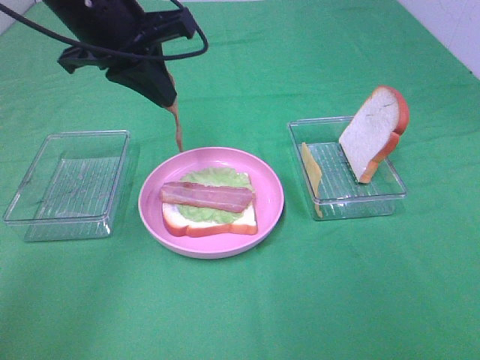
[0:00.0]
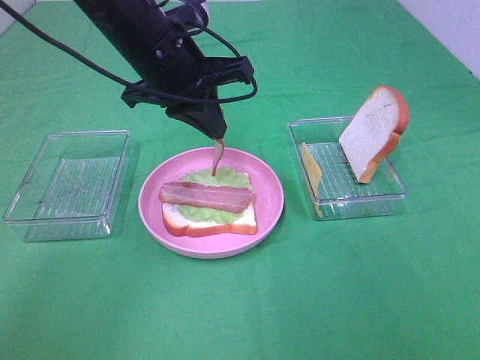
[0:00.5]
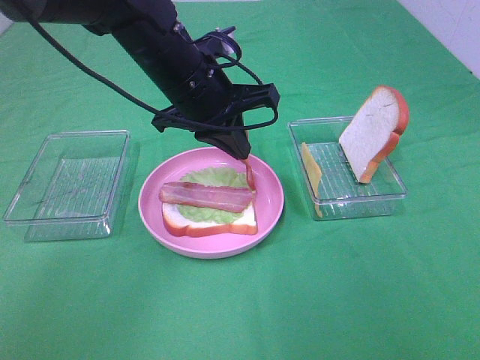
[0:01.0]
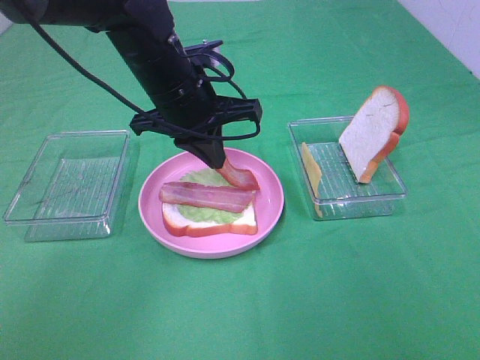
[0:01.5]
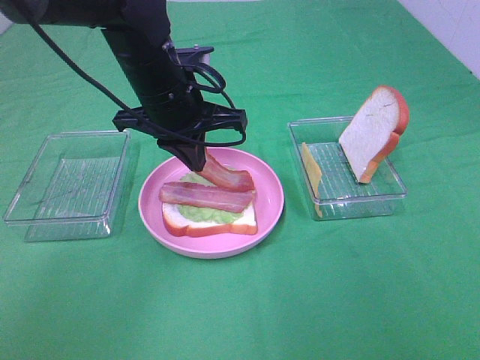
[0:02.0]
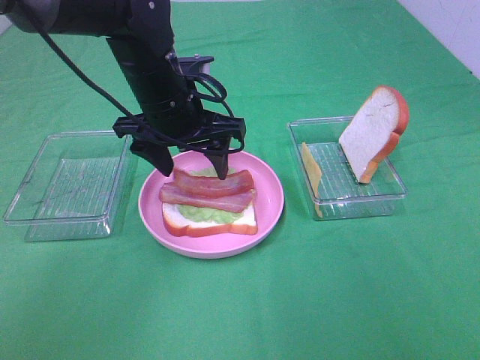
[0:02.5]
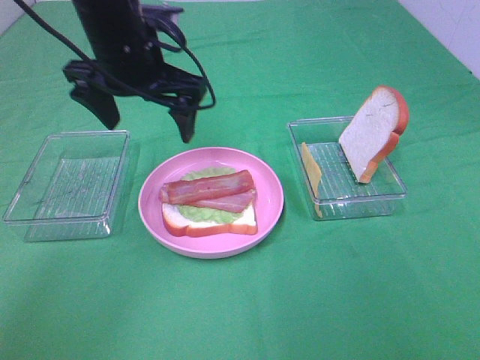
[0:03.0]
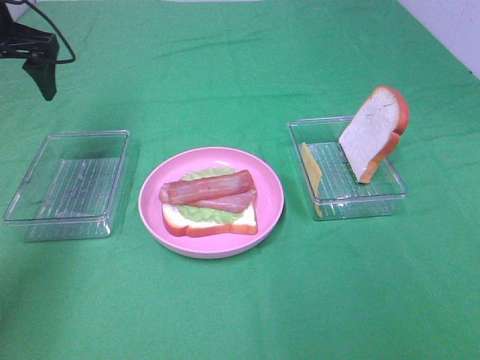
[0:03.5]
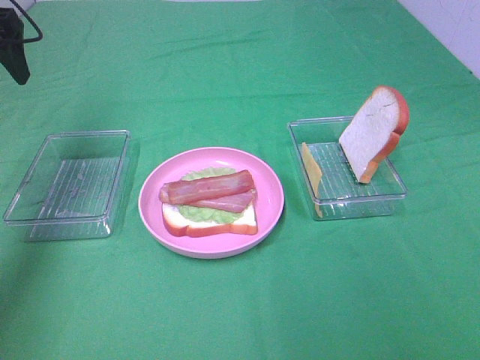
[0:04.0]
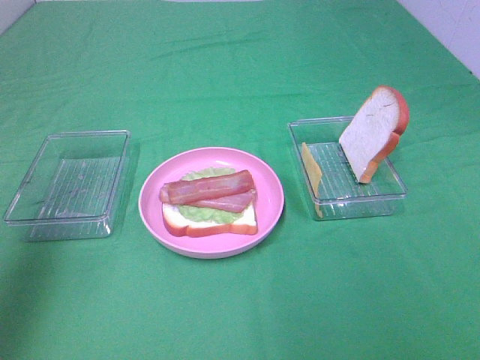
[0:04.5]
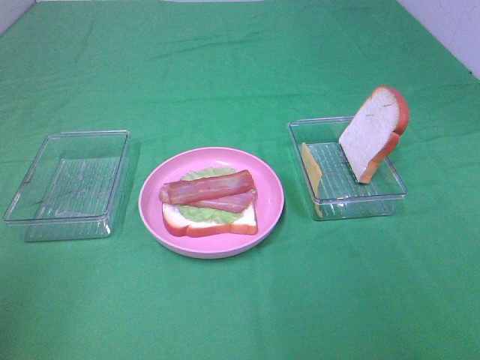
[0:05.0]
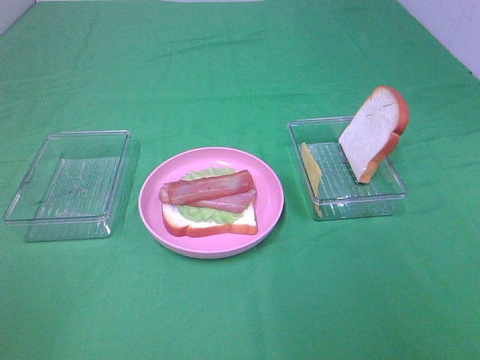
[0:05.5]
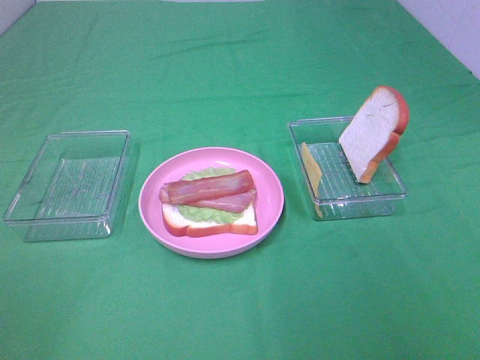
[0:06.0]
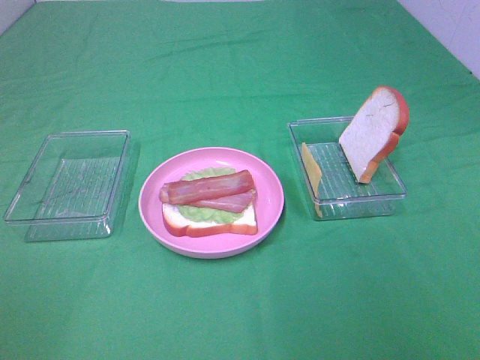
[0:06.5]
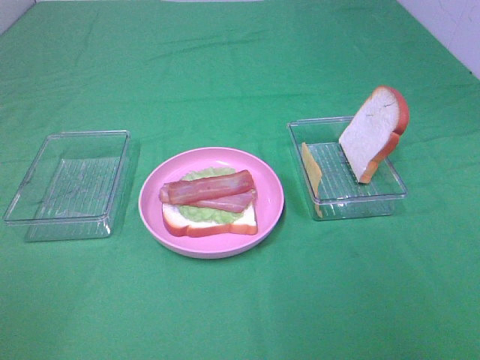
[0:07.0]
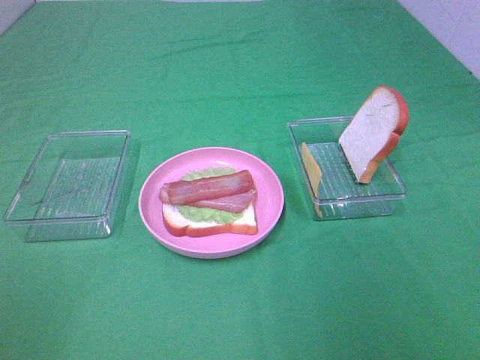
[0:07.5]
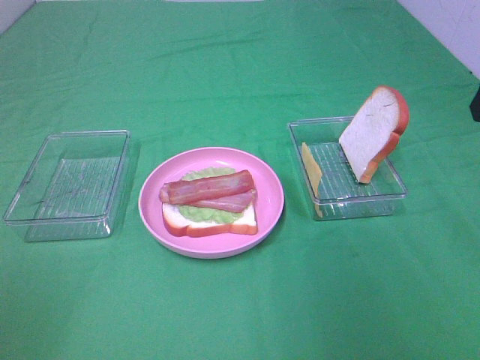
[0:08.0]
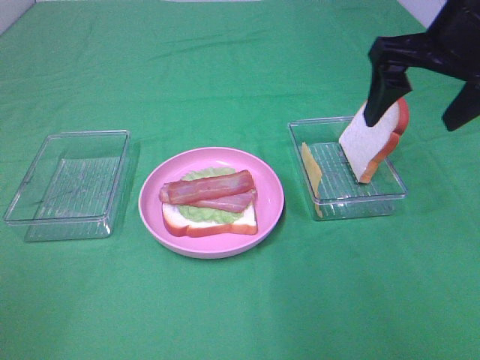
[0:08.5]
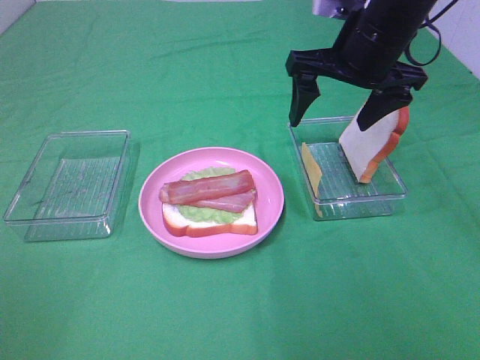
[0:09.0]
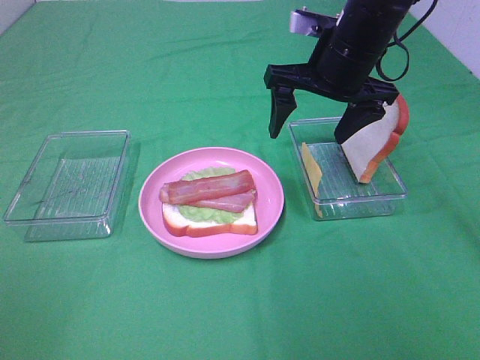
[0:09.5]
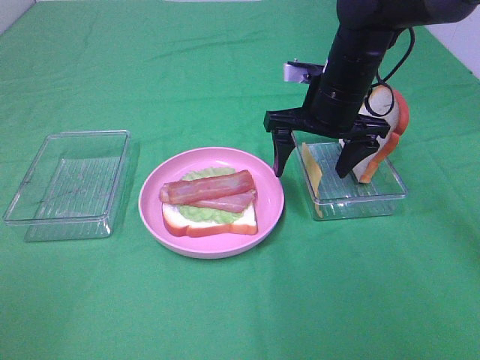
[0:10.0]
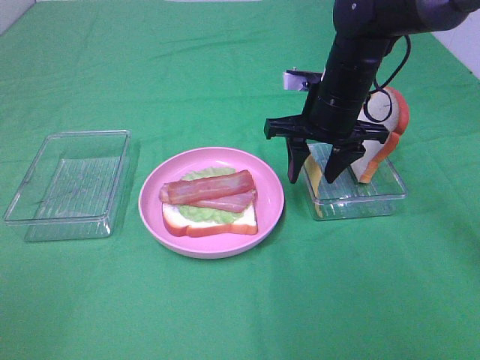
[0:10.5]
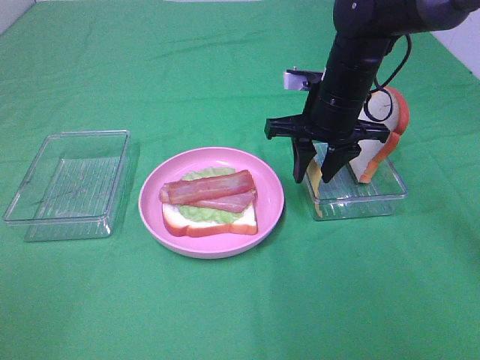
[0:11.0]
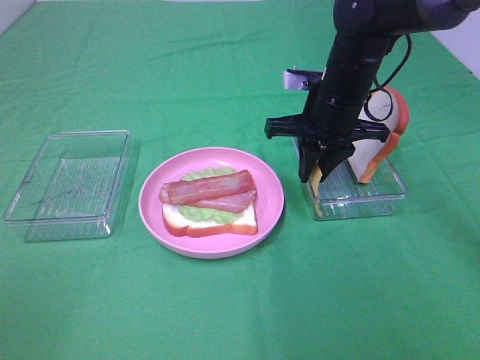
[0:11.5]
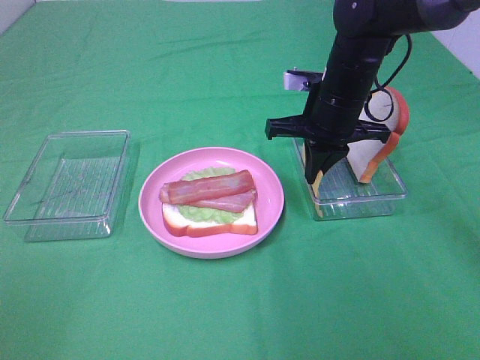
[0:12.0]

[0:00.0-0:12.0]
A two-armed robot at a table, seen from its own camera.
Task of the whole recording: Make sandwiches.
Step, 0:00.0 to 0:02.5: Left hand:place bacon on bacon.
0:00.0 to 0:02.0: The left gripper shifts approximately 10 cm downward and to the right.
0:02.0 to 0:04.0: The left gripper travels to the left and upward by some 25 cm, and opens up.
0:04.0 to 0:06.0: The left gripper shifts some 40 cm backward.
0:08.0 to 0:10.0: The right gripper heads to the left, downward and forward, covering some 25 cm.
0:10.0 to 0:12.0: The right gripper closes.

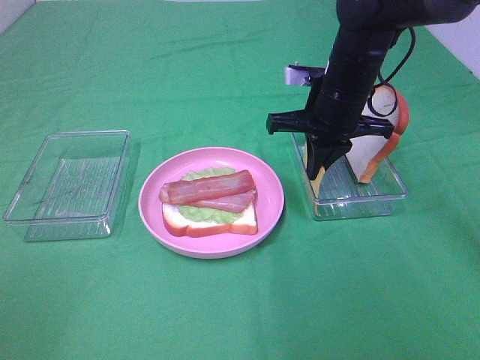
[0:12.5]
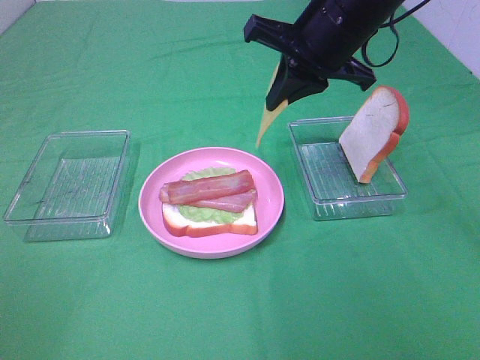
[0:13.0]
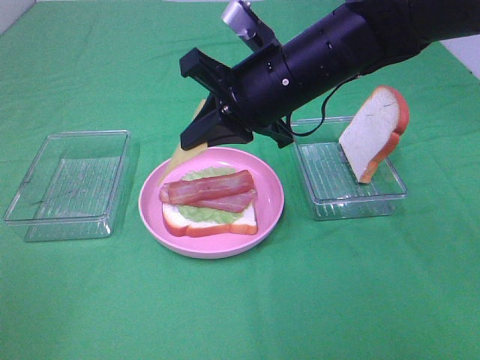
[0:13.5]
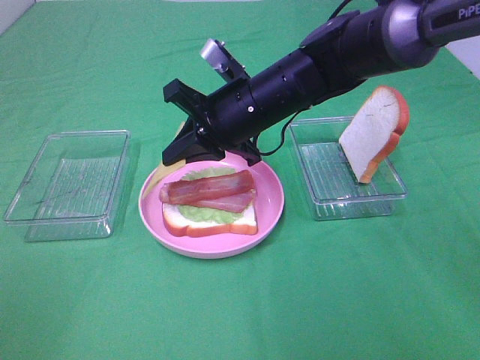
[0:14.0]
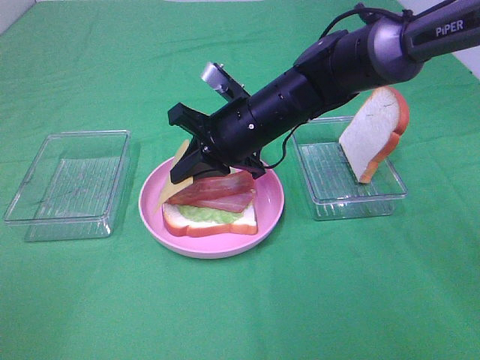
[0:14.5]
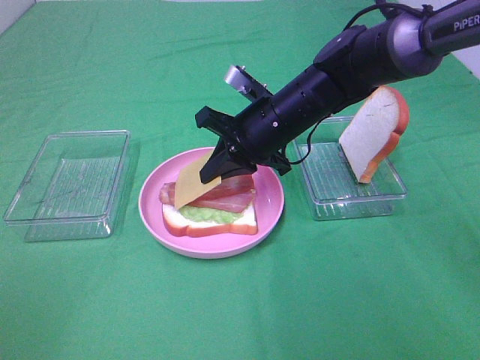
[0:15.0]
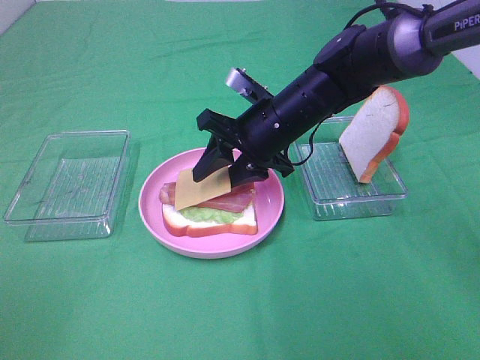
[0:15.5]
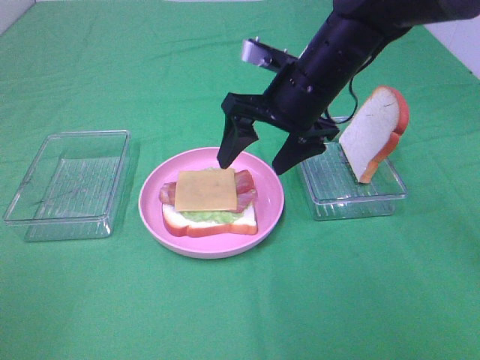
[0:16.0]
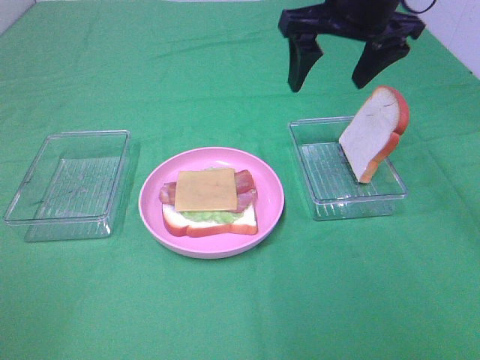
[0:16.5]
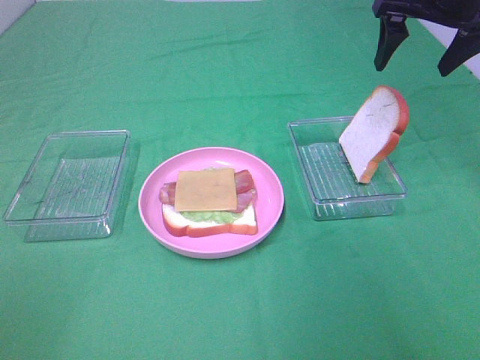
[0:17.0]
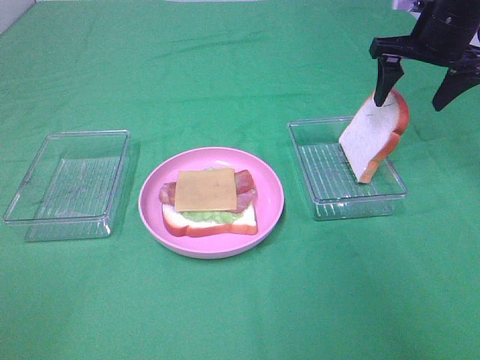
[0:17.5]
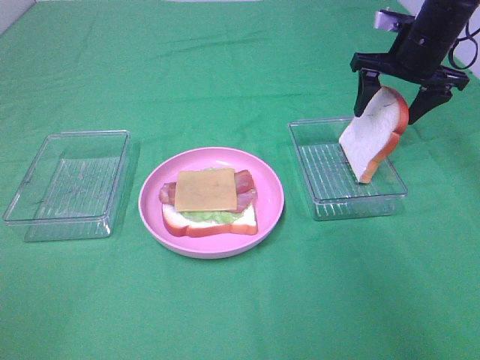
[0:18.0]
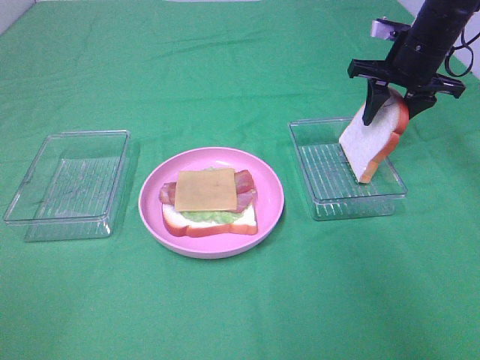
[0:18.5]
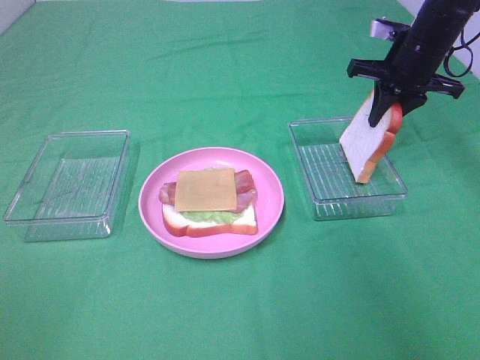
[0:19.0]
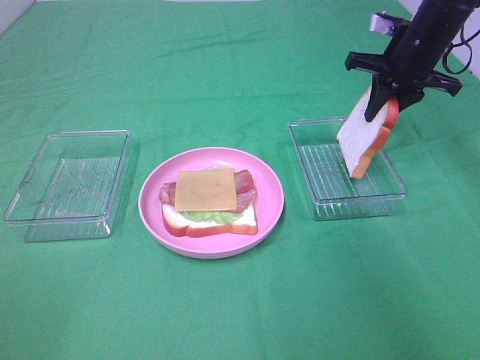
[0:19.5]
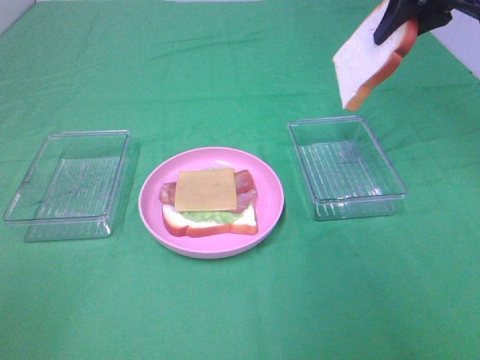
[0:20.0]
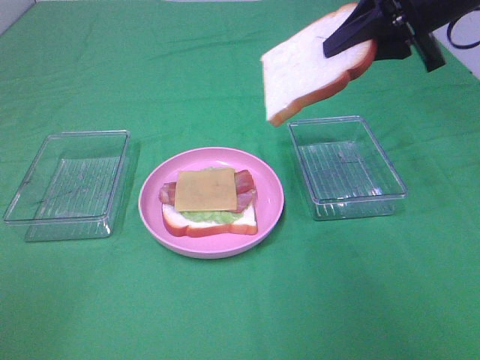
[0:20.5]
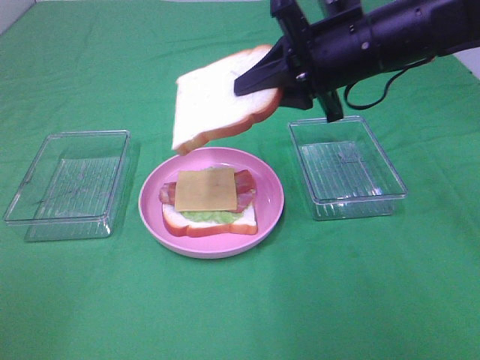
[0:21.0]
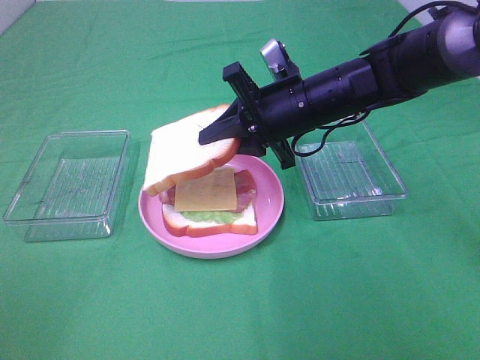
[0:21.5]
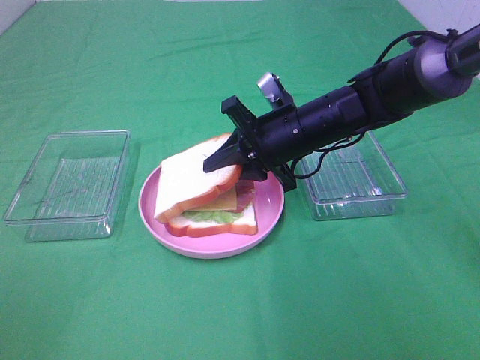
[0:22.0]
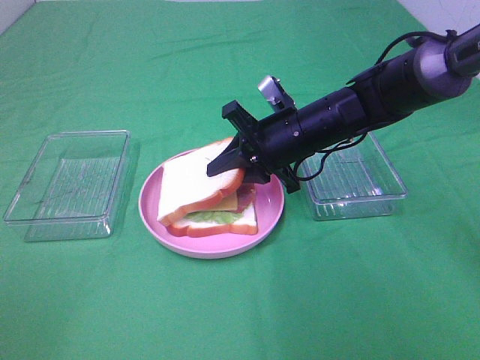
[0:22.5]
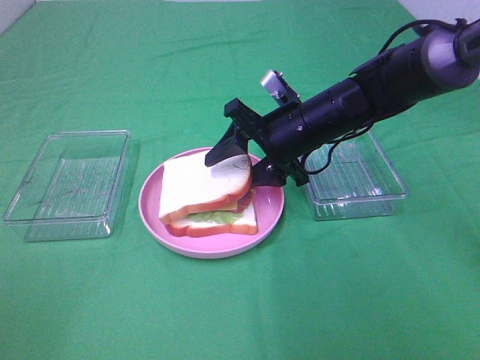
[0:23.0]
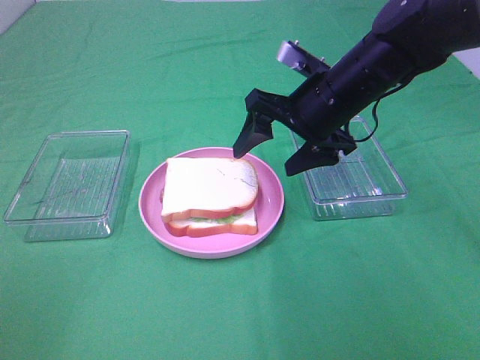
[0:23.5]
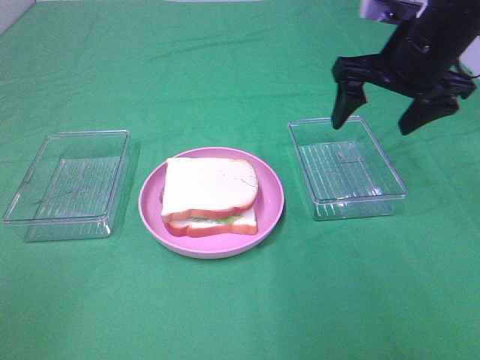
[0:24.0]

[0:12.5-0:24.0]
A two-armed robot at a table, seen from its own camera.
Task of the whole recording: Make sandwiches.
Step, 0:12.5 to 0:16.0: Right hand:place the cheese slice on top of the bacon.
Step, 0:16.5 to 0:19.0: Right hand:grab the bread slice.
Step, 0:19.5 to 0:23.0: Right hand:place the bread slice on the cheese slice.
0:12.5 to 0:14.5: The right gripper is displaced to the left by some 10 cm, and moves some 10 cm upward and comes back.
0:14.5 to 0:16.5: The right gripper heads upward and to the right, covering approximately 20 cm, and opens up.
0:16.5 to 0:18.5: The right gripper is displaced downward, to the right and forward by about 20 cm, and closes its fingers.
0:18.5 to 0:20.0: The right gripper moves upward, about 15 cm.
0:20.0 to 0:22.0: The right gripper goes roughly 25 cm downward and to the left.
0:22.0 to 0:24.0: The right gripper goes roughly 20 cm upward and to the right, and opens its fingers.

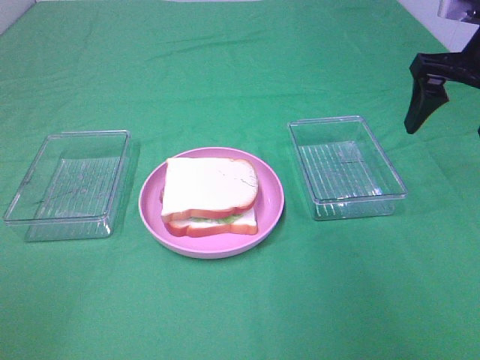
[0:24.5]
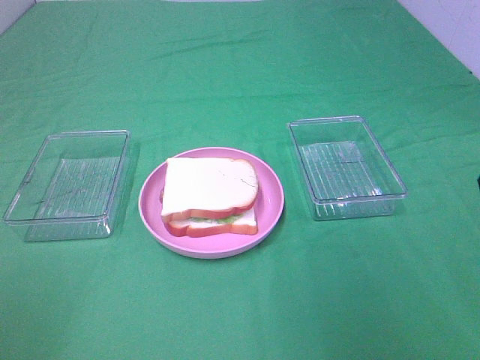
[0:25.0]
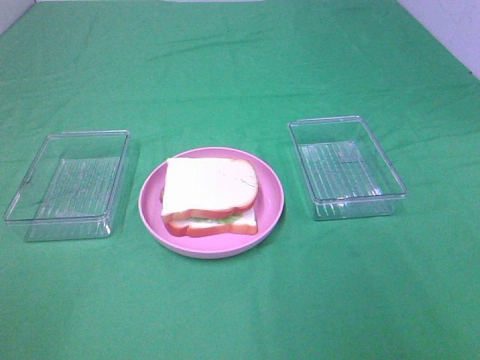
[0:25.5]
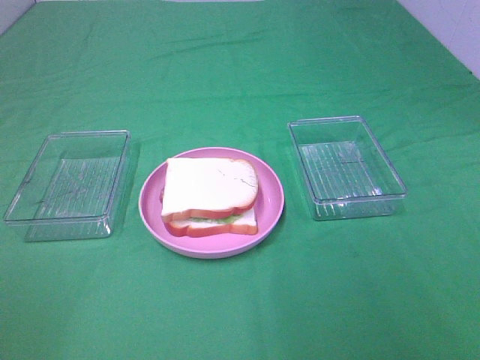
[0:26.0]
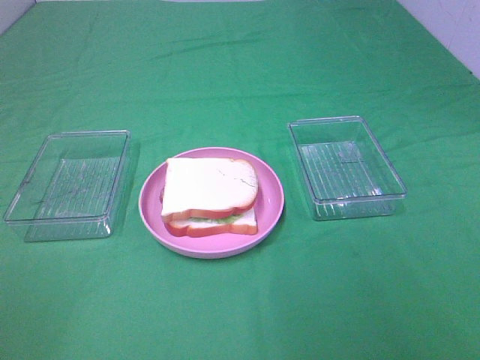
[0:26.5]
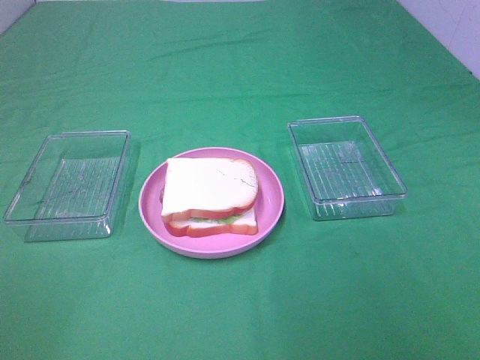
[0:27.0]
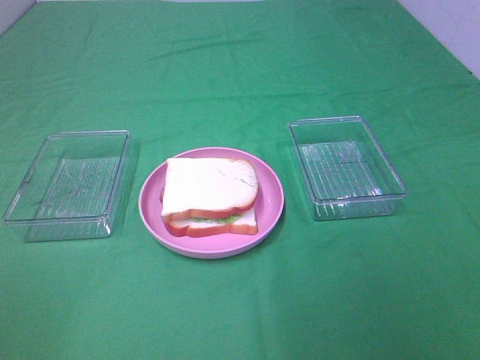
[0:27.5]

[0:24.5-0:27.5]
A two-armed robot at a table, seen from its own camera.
Task of the whole recording: Make sandwiches.
0:24.5 to 0:26.0: The right gripper goes approximately 35 cm backward.
0:26.0 to 0:27.5: Both grippers stay put.
